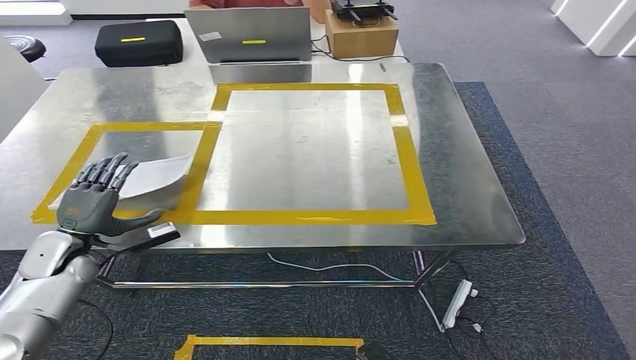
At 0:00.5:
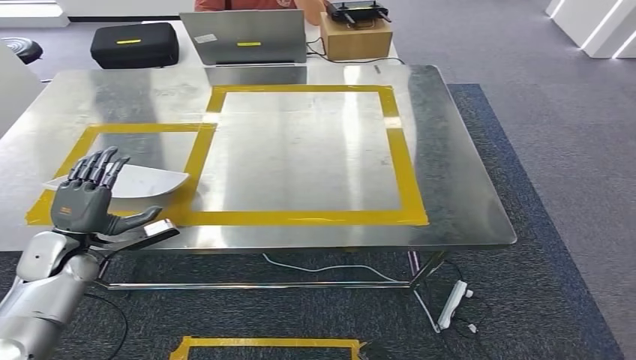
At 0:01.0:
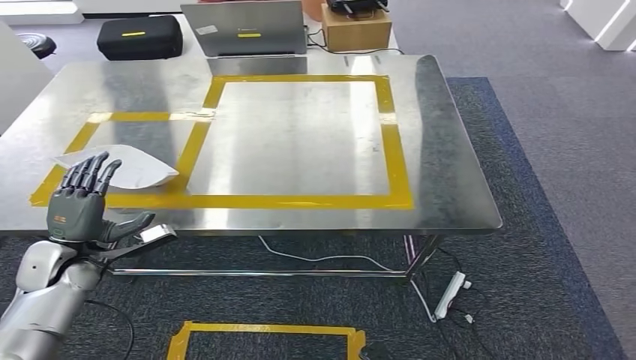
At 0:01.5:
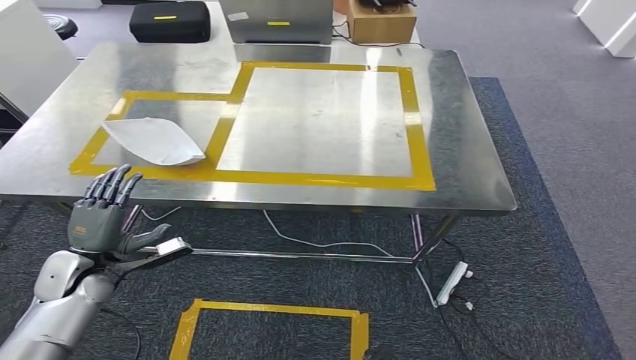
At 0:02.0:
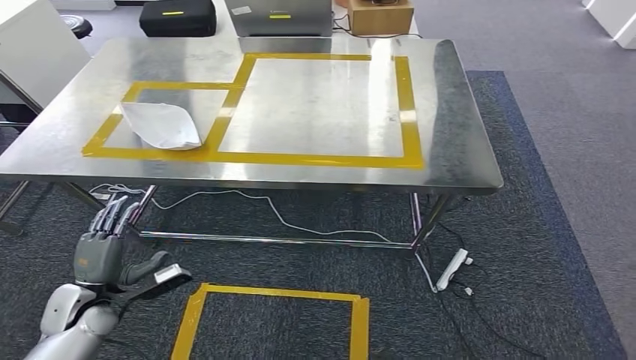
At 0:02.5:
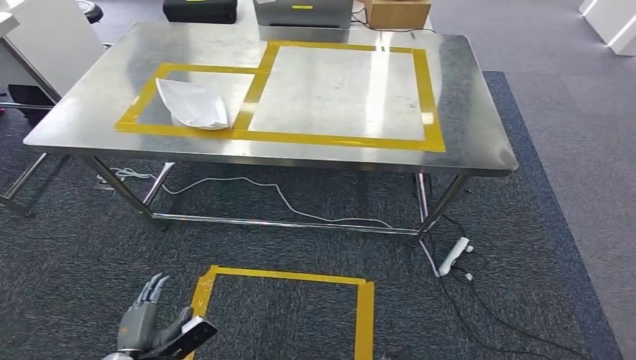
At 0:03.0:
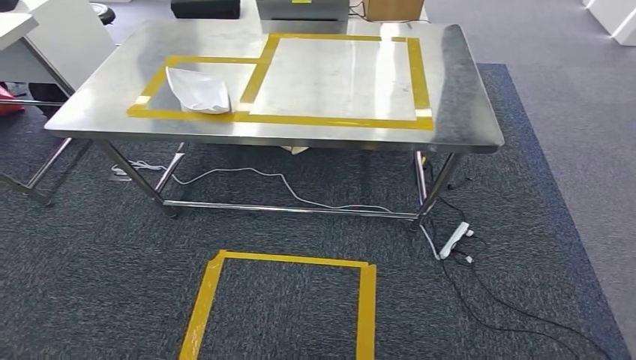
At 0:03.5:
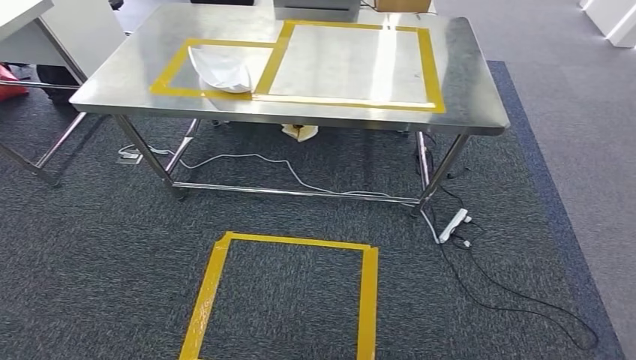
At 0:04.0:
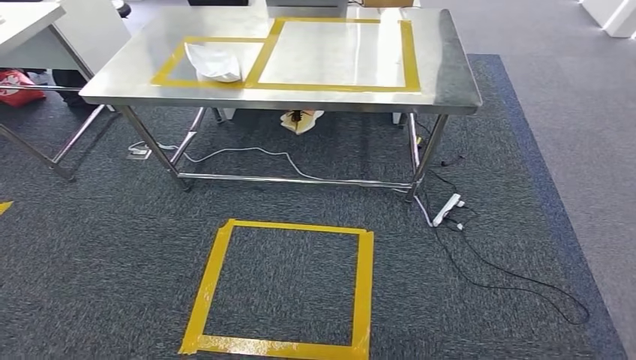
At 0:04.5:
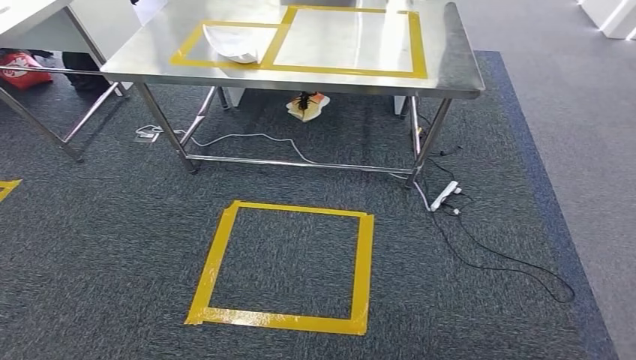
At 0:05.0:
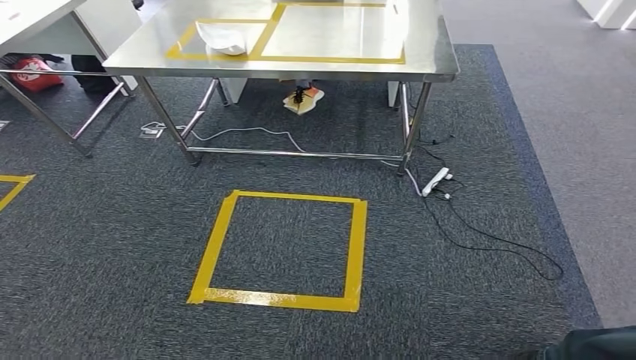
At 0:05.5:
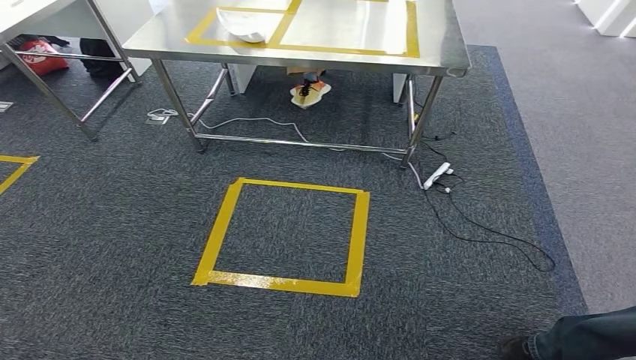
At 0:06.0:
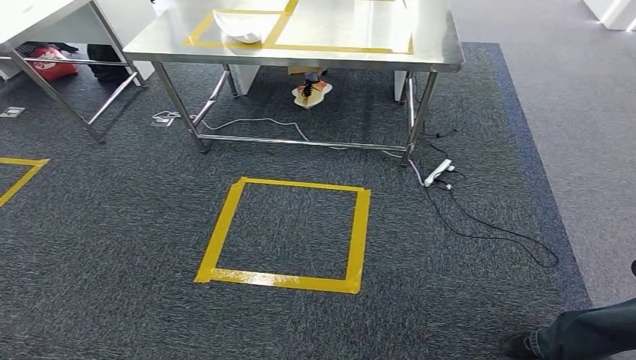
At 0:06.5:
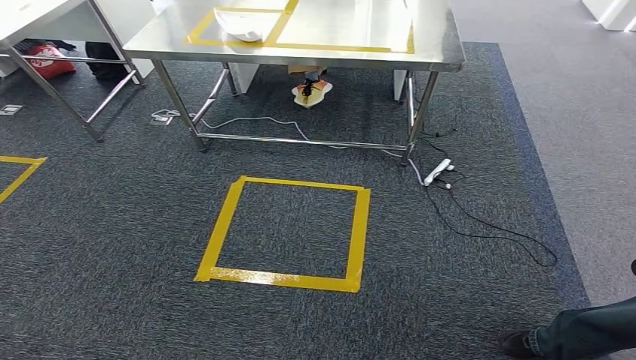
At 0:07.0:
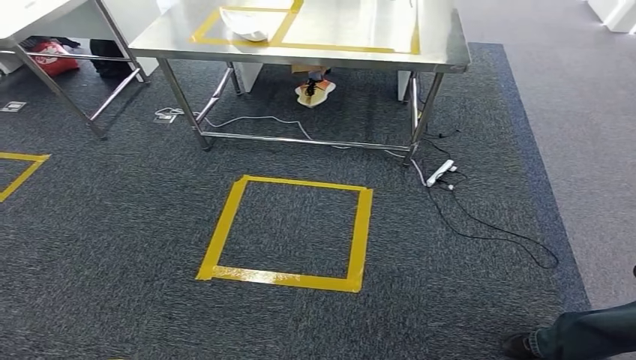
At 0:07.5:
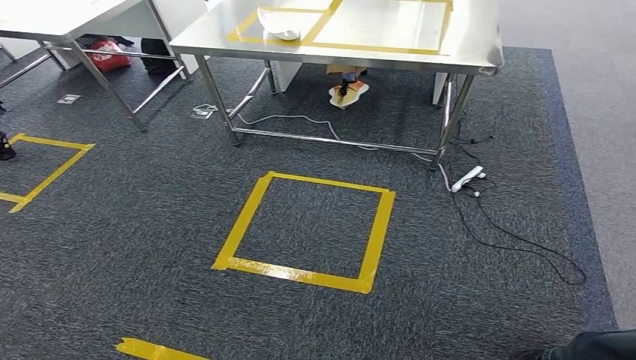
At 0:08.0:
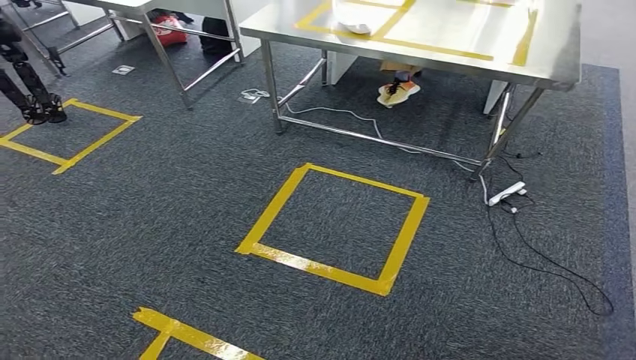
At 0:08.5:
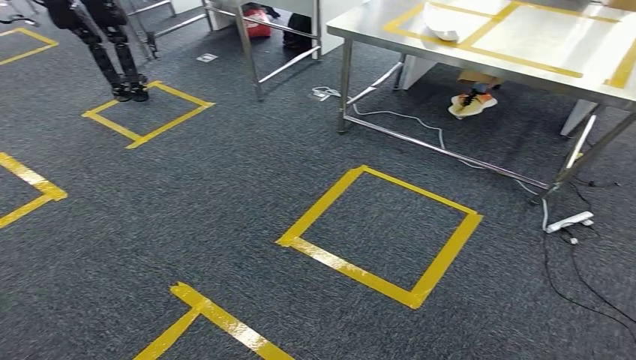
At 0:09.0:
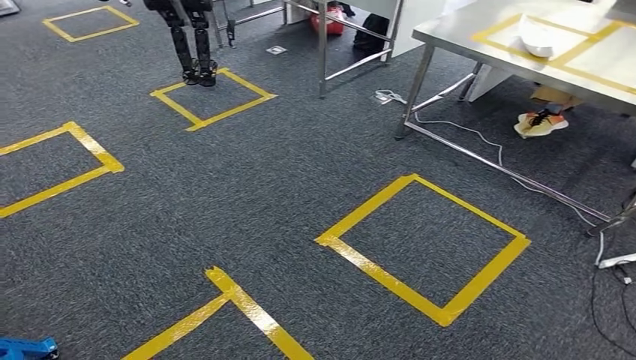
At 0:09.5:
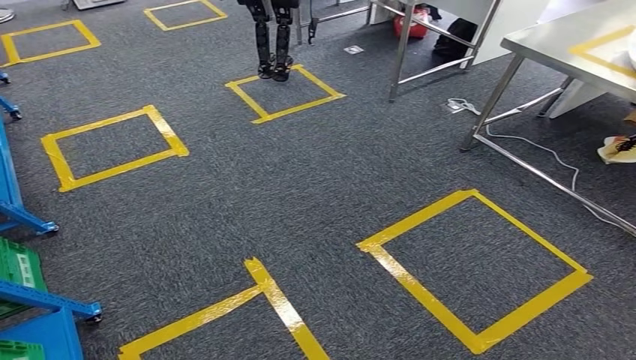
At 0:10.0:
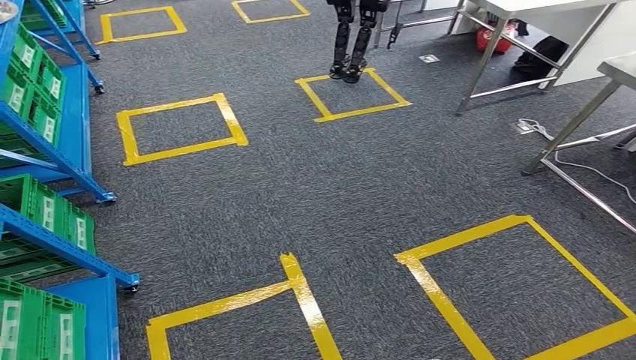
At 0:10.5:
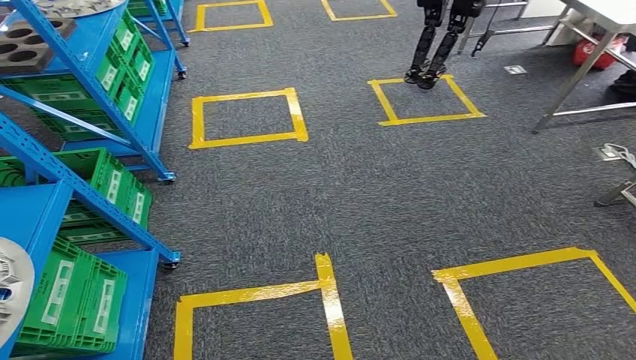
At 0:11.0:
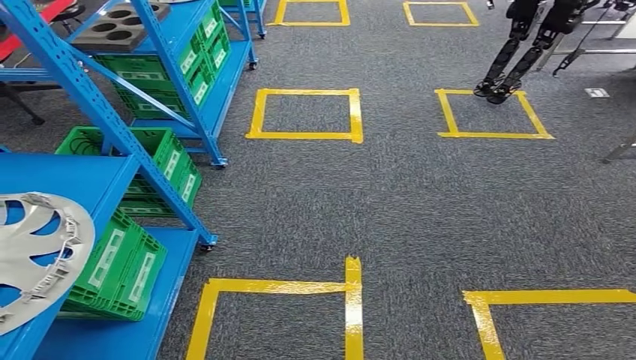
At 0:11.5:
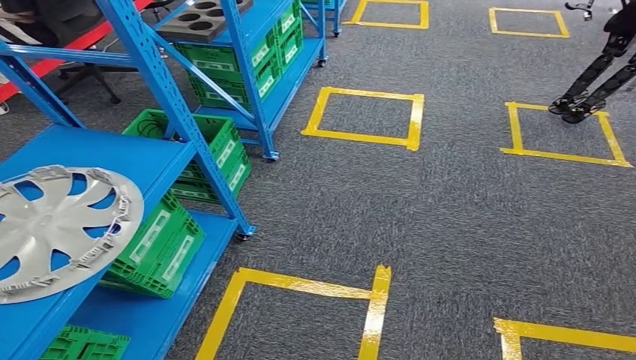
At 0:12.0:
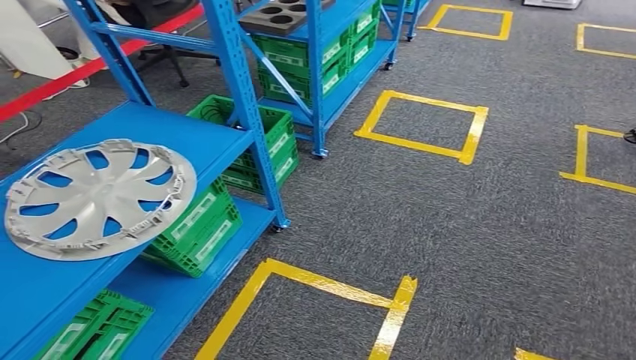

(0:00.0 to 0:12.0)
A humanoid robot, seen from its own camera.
Step, 0:00.0 - 0:02.5: Insert the small parts into the corresponding holes on the workbench.

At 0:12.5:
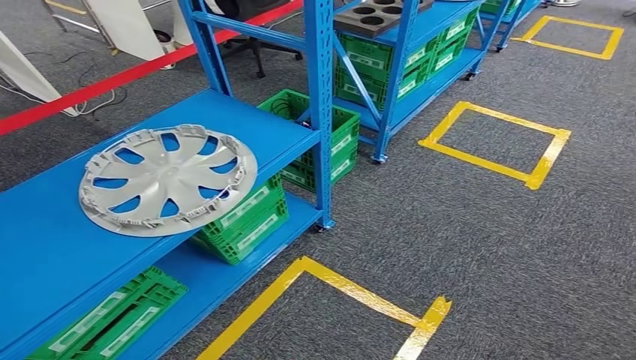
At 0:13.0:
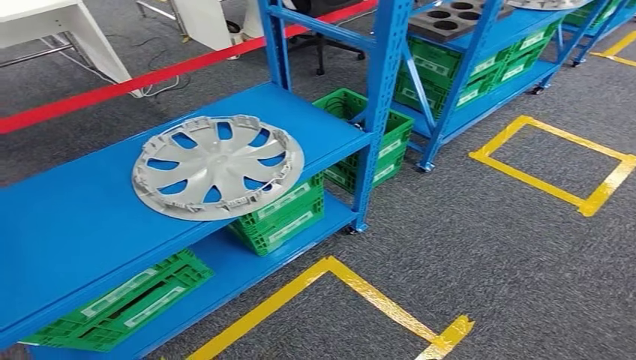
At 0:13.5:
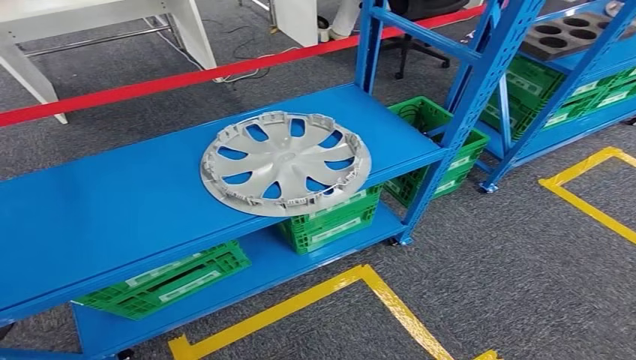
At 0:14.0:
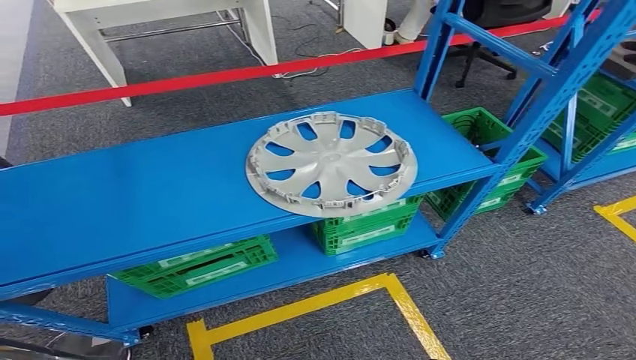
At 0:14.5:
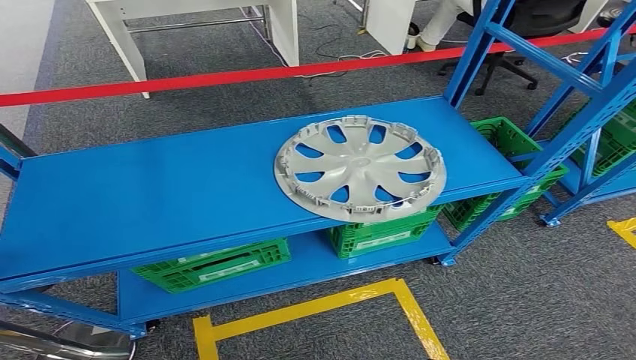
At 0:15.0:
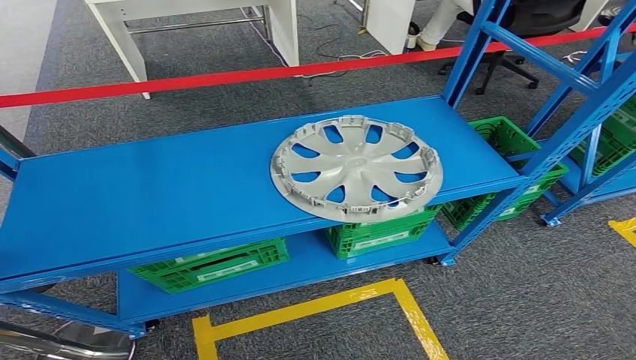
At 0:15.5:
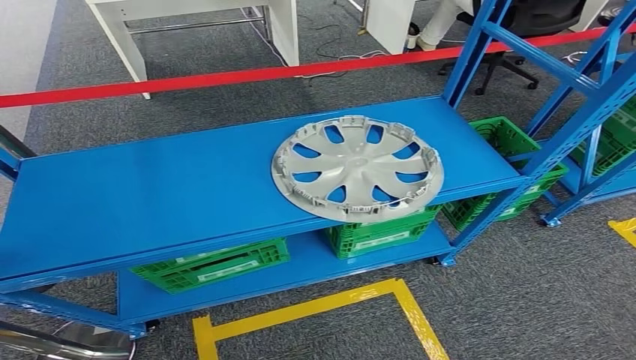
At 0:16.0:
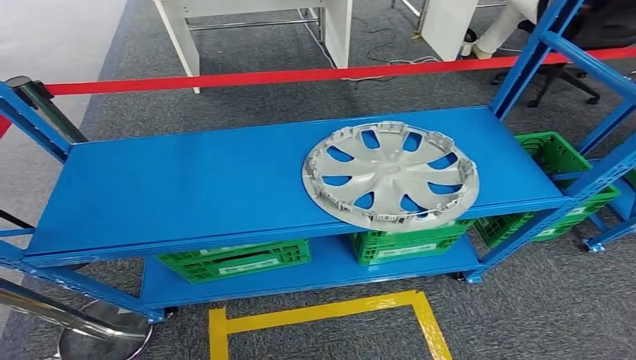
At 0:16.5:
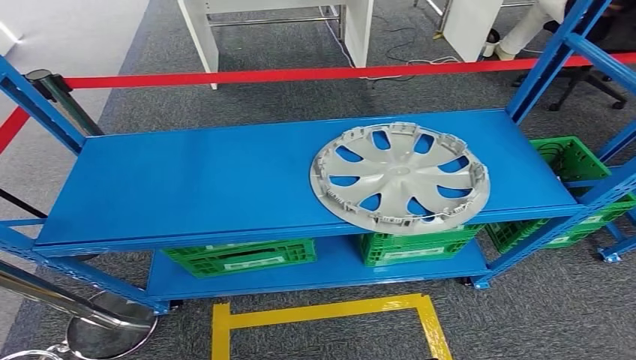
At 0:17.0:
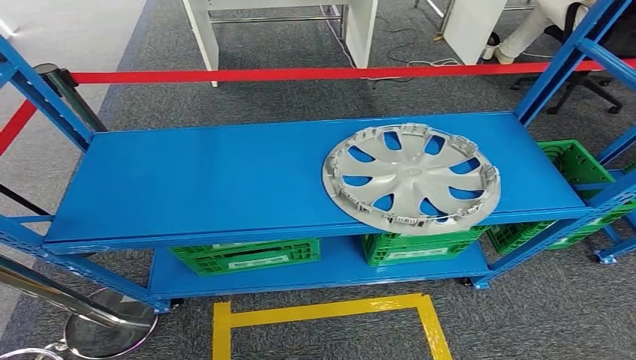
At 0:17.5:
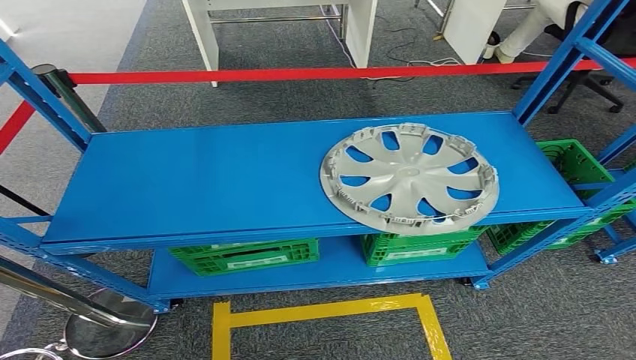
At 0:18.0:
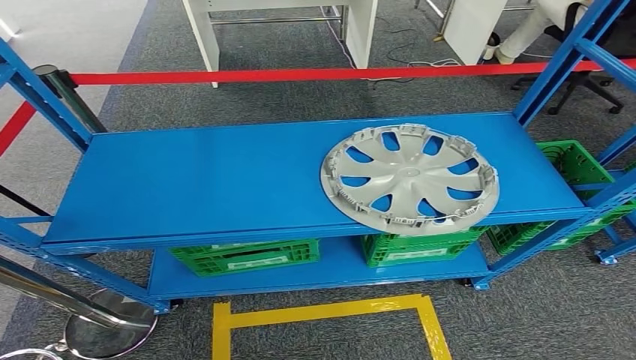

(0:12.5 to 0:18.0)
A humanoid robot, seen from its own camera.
Step, 0:12.5 - 0:18.0: Move to the initial position of the workbench.
